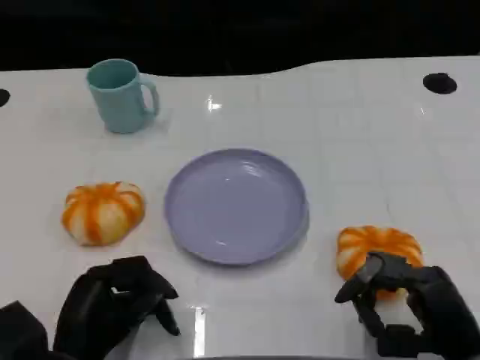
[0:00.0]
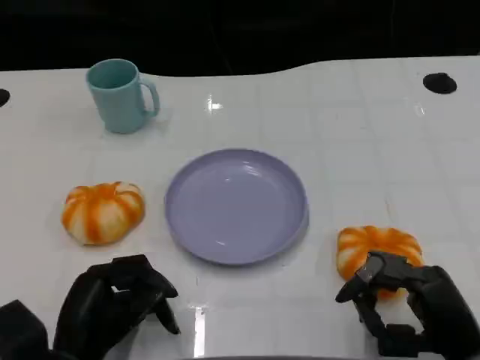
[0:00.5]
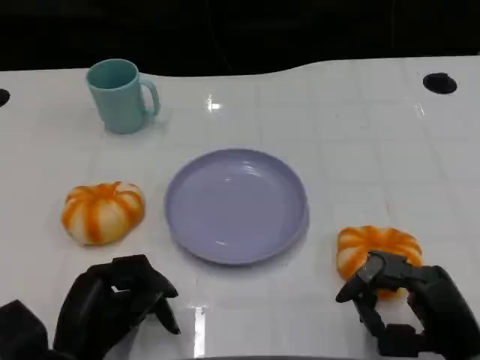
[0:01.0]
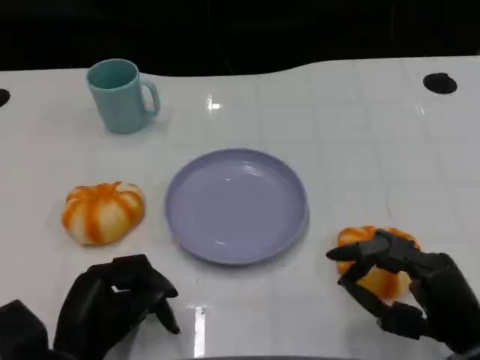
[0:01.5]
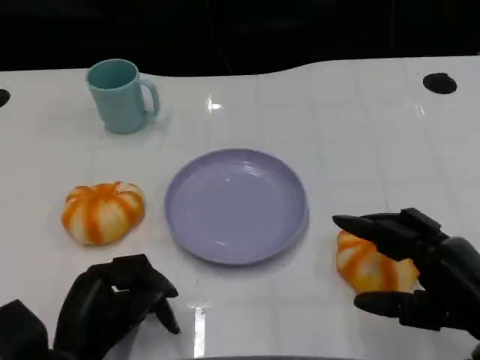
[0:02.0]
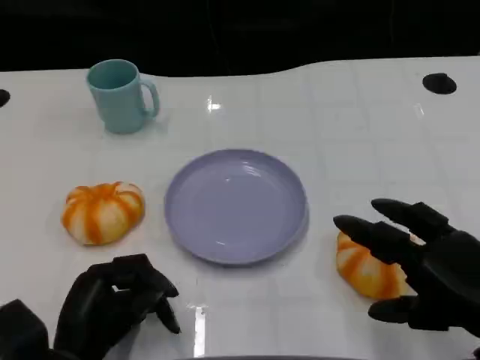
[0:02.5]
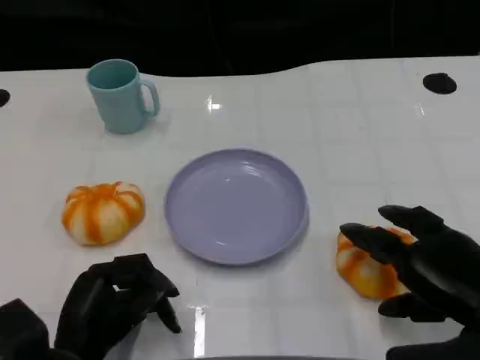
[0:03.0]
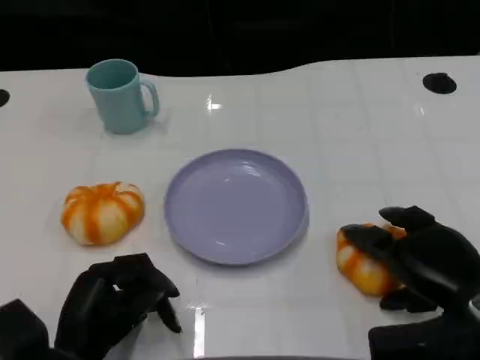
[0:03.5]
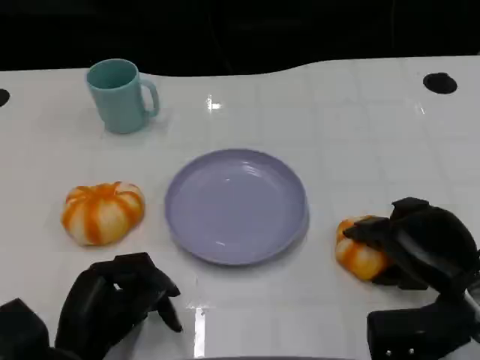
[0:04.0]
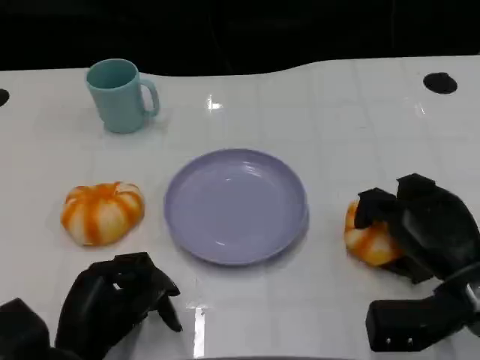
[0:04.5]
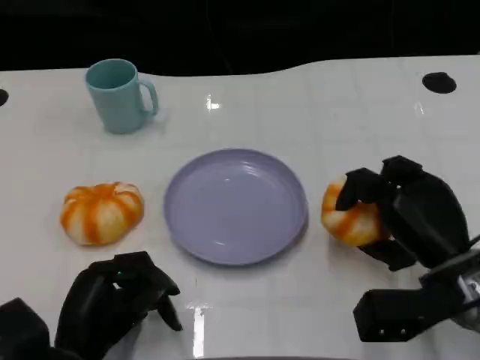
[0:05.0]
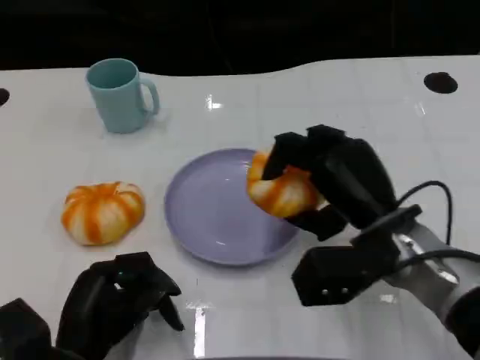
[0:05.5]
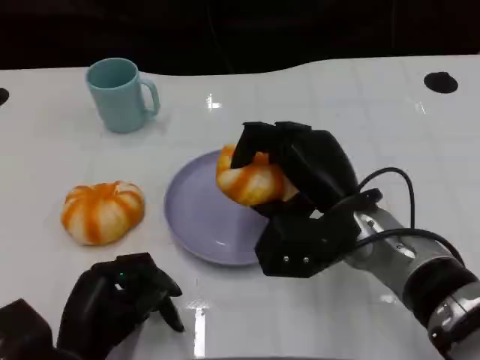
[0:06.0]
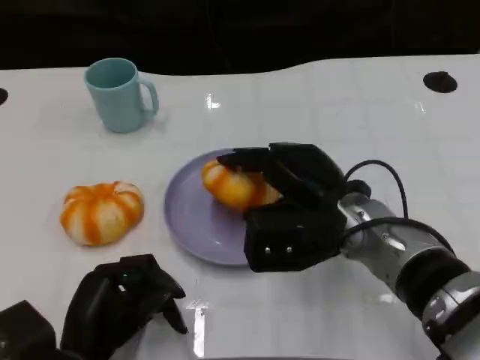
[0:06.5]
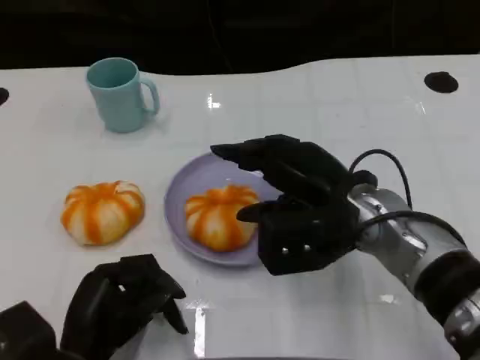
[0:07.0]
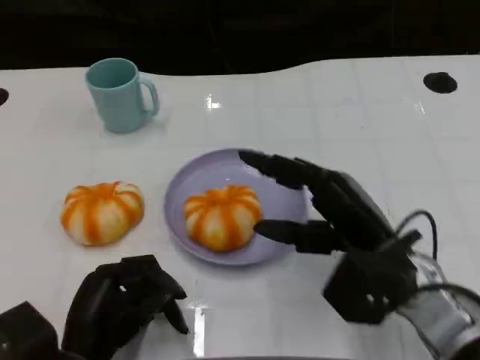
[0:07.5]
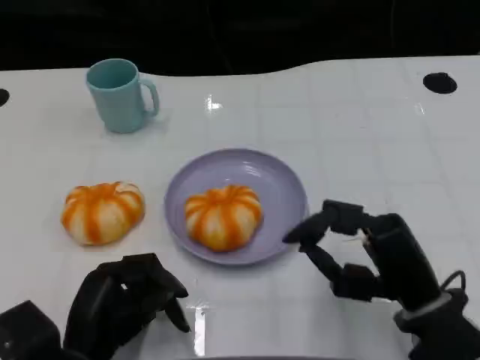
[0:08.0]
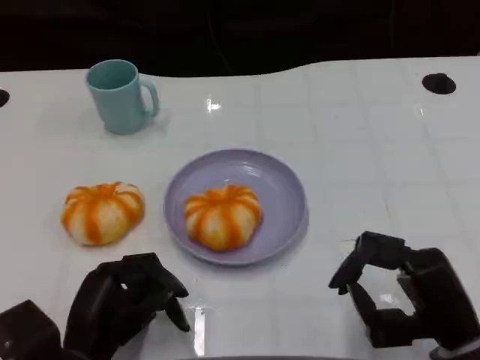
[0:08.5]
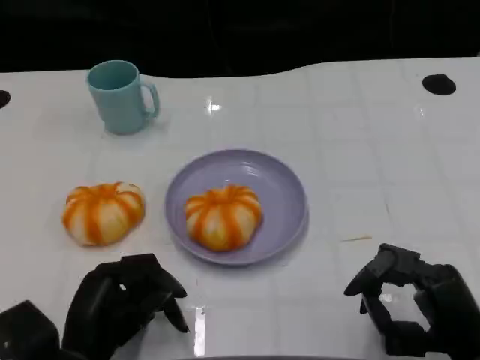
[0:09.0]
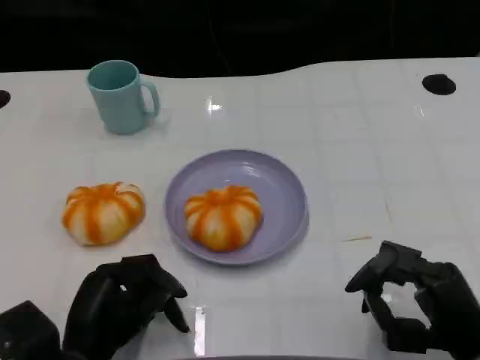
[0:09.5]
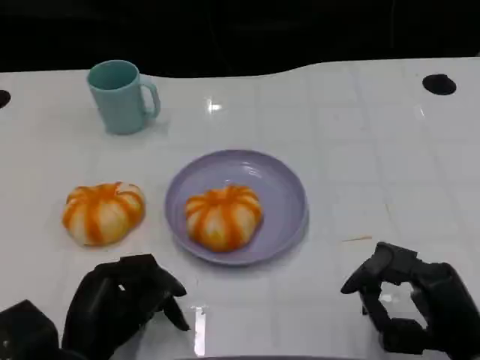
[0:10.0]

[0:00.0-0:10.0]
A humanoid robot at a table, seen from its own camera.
Task of the whole recording: Grasp the bread from the table and place it into the plate.
0:00.0 to 0:02.0: The right hand shifts some 5 cm upward.
0:02.0 to 0:04.0: The right hand is displaced forward by approximately 5 cm.
0:04.0 to 0:06.0: The right hand heads to the left, covering some 15 cm.
0:06.0 to 0:08.0: The right hand goes roughly 10 cm to the right and backward.
0:08.0 to 0:10.0: The right hand moves roughly 5 cm.

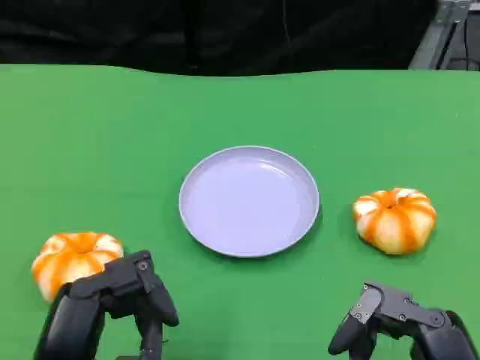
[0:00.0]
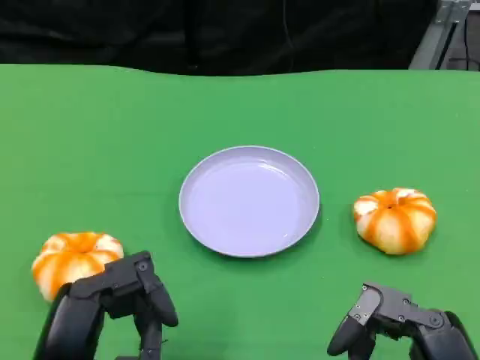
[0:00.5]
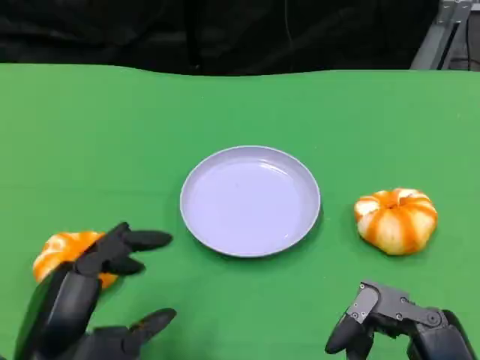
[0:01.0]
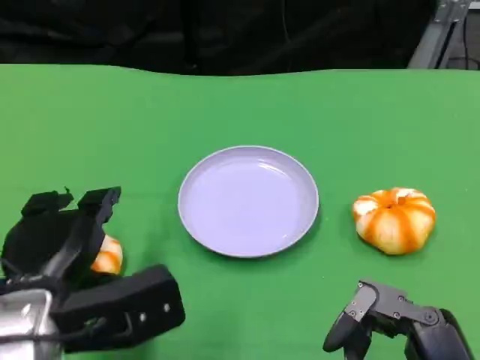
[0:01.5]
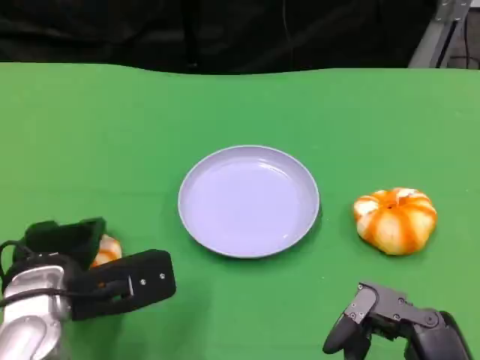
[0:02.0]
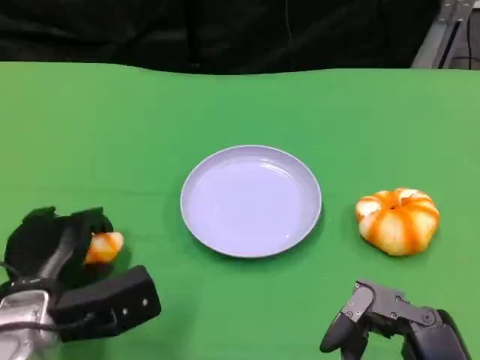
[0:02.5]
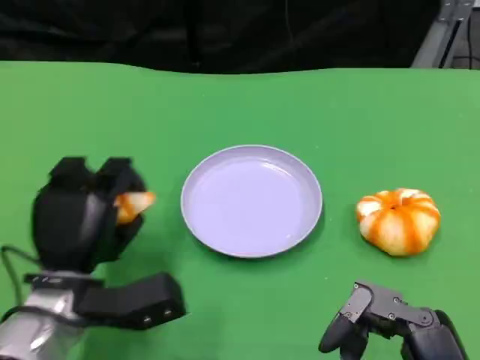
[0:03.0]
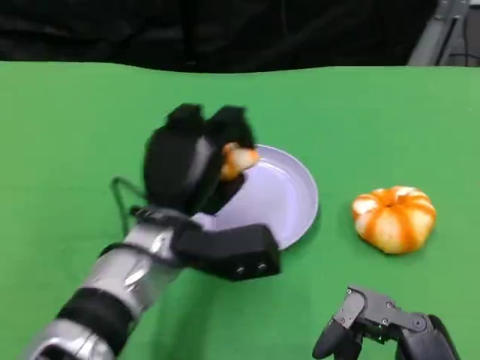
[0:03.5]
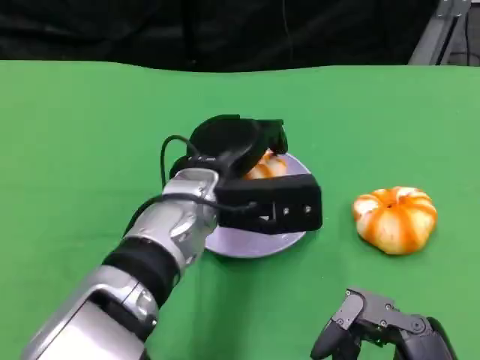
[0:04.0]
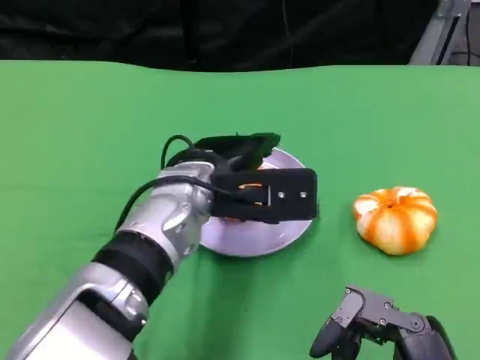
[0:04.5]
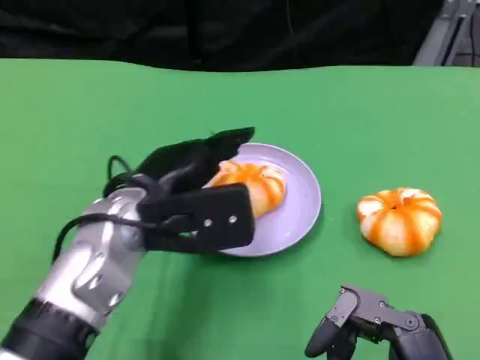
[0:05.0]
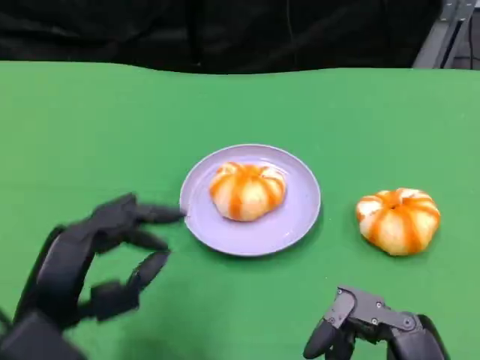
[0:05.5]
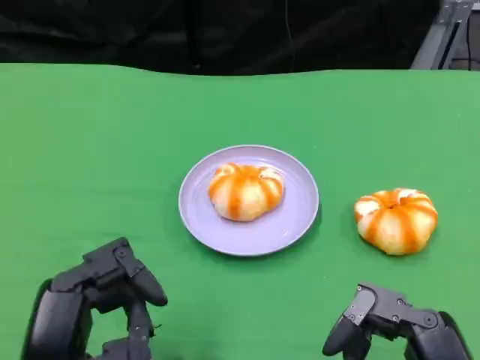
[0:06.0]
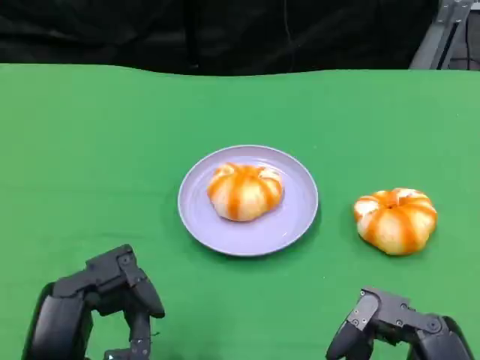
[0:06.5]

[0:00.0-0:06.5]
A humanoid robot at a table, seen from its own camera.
Task of the whole recording: Grasp the bread from the table and place it into the plate.
0:00.0 to 0:02.0: The left hand goes roughly 15 cm forward.
0:02.0 to 0:04.5: The left hand travels to the right, forward and upward by about 15 cm.
0:04.5 to 0:06.5: The left hand is displaced backward and to the left by approximately 25 cm.

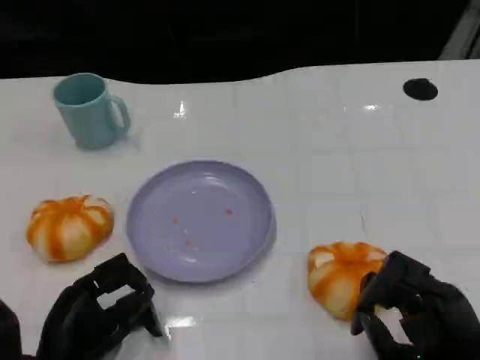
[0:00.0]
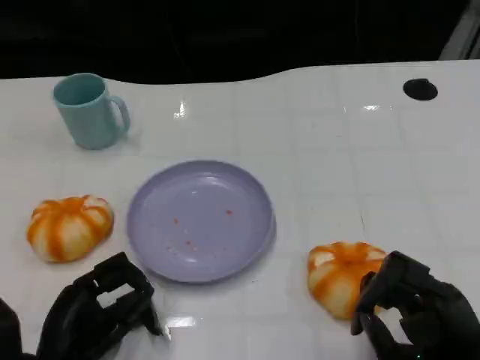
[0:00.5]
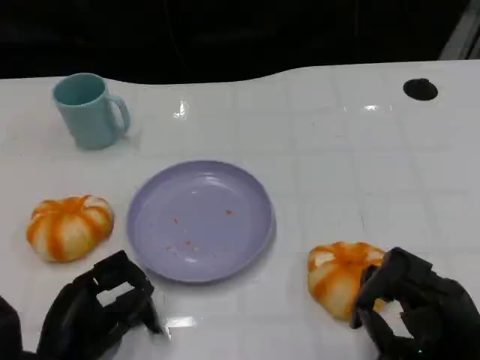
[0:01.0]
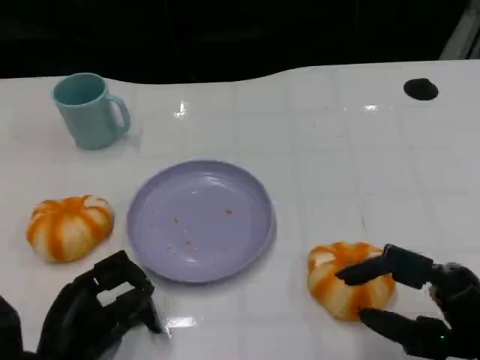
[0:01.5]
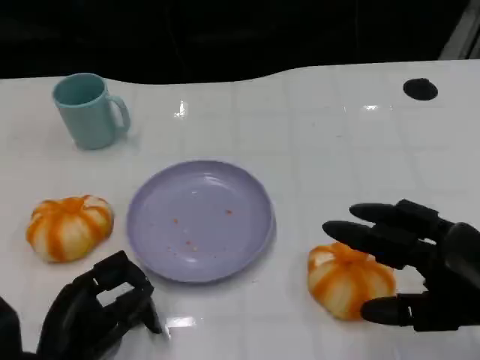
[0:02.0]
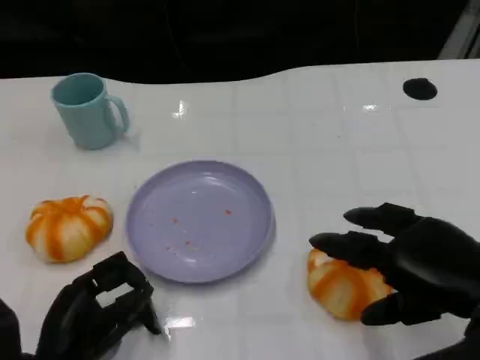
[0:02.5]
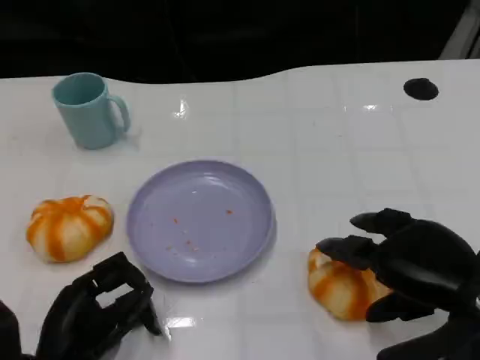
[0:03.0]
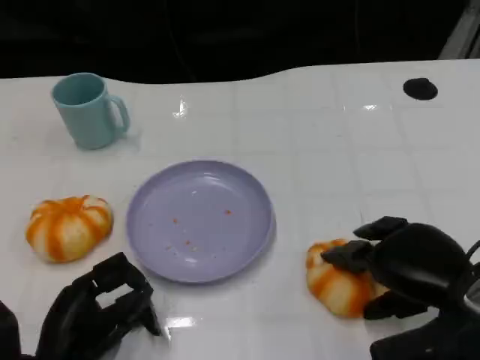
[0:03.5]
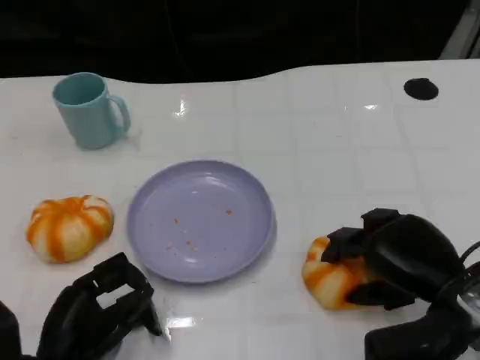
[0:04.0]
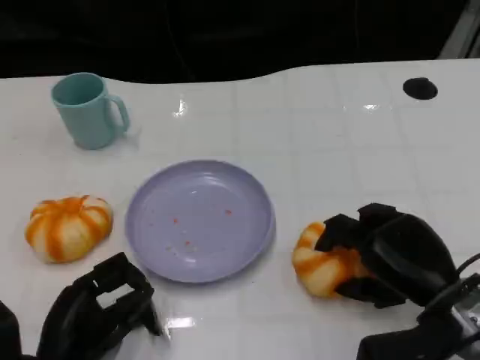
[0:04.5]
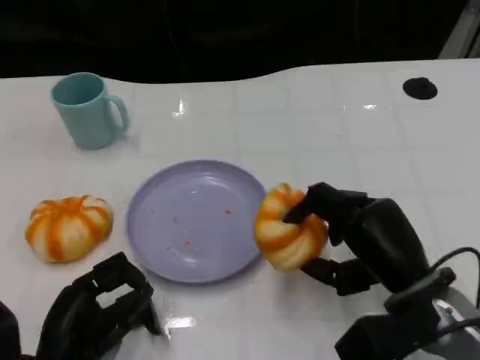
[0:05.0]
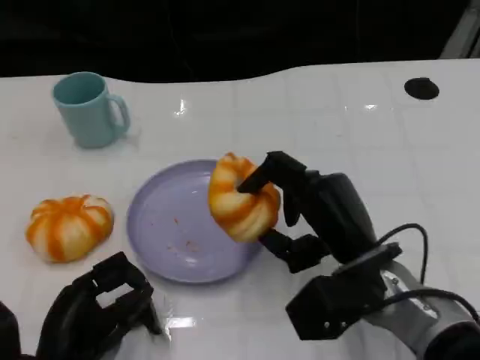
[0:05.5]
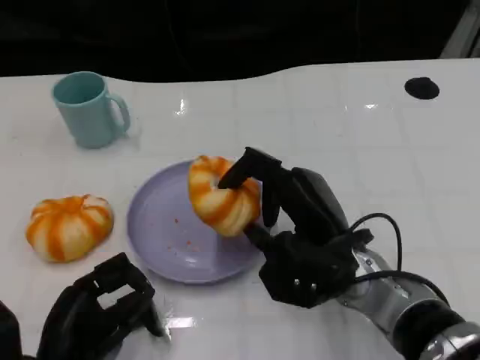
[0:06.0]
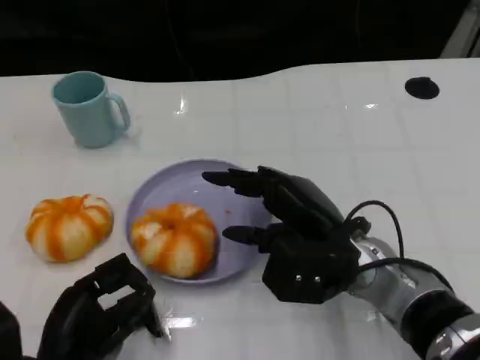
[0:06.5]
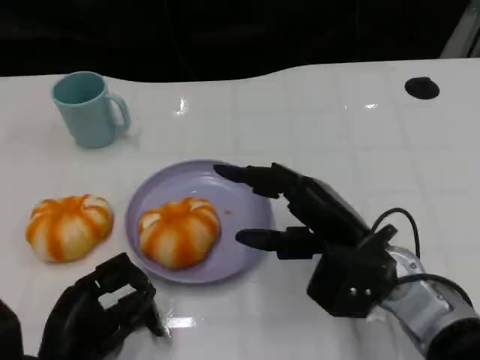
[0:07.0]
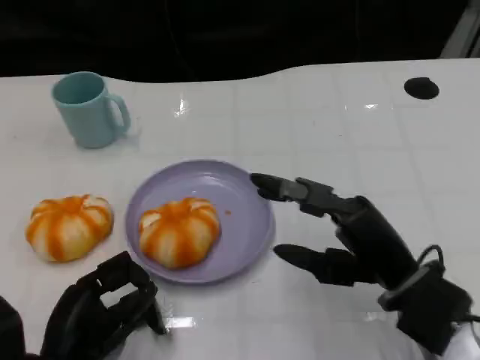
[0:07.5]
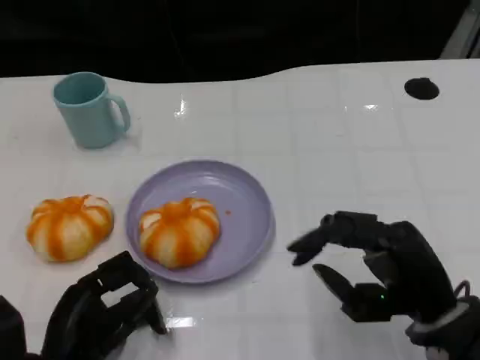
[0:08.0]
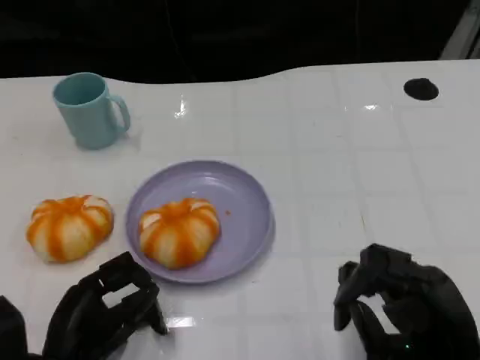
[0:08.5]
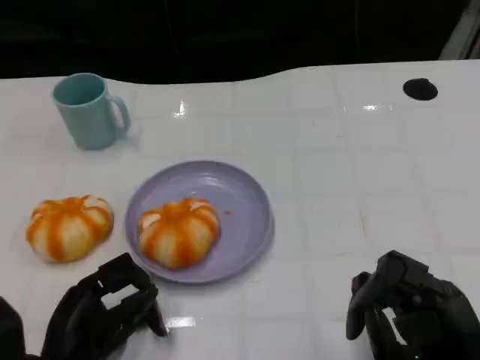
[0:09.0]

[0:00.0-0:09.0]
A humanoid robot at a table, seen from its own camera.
Task of the whole recording: Grasp the bread from the table and place it into the plate.
0:00.0 to 0:02.0: The right hand goes some 10 cm upward.
0:02.0 to 0:04.5: The right hand is displaced downward and forward by approximately 10 cm.
0:04.5 to 0:07.0: The right hand goes some 5 cm to the left.
0:07.0 to 0:09.0: The right hand travels backward and to the right by approximately 15 cm.
